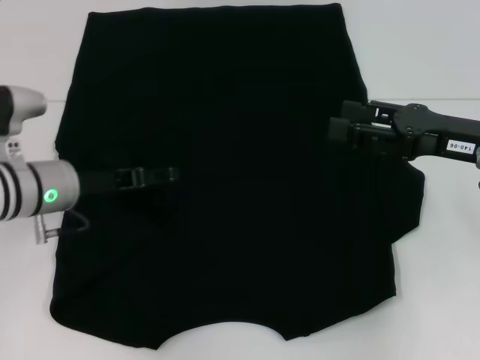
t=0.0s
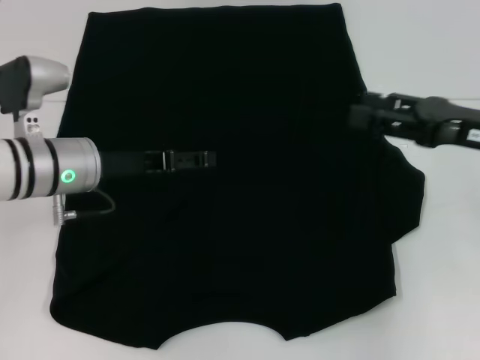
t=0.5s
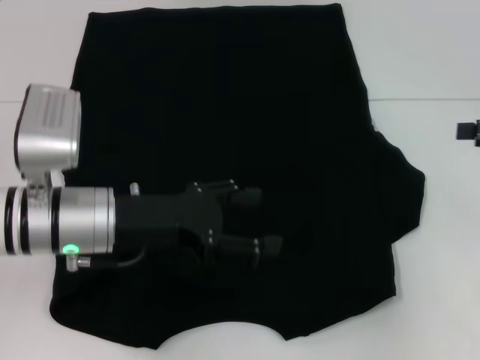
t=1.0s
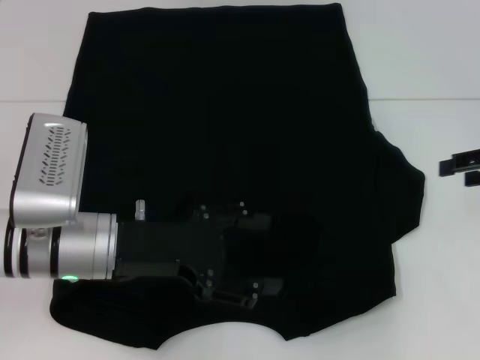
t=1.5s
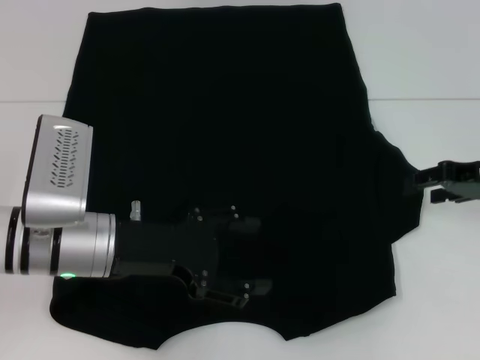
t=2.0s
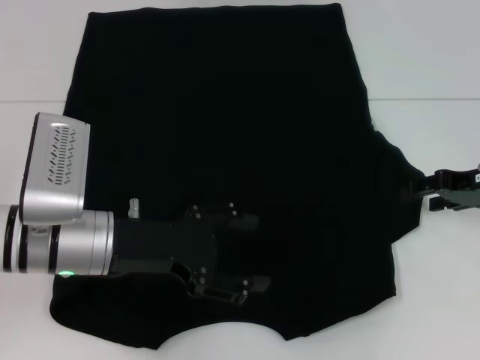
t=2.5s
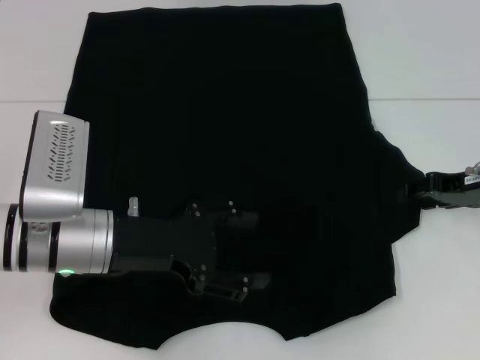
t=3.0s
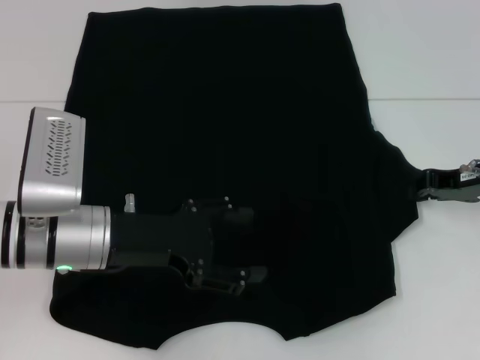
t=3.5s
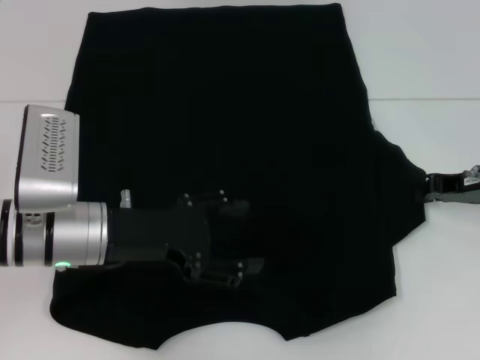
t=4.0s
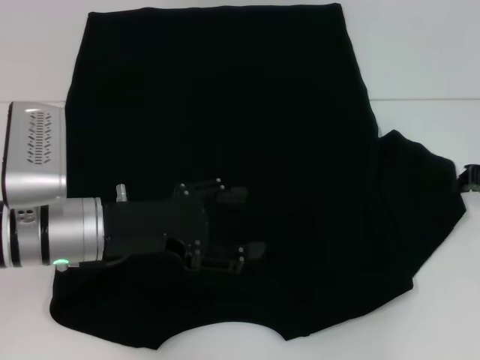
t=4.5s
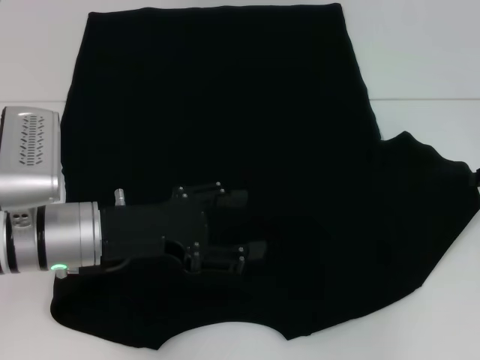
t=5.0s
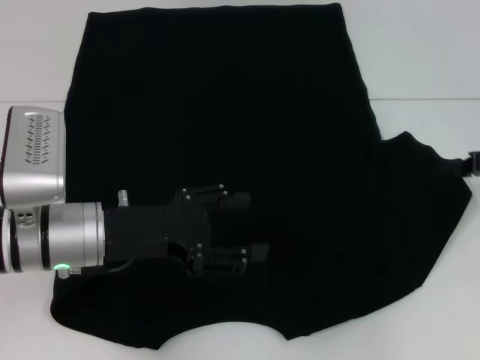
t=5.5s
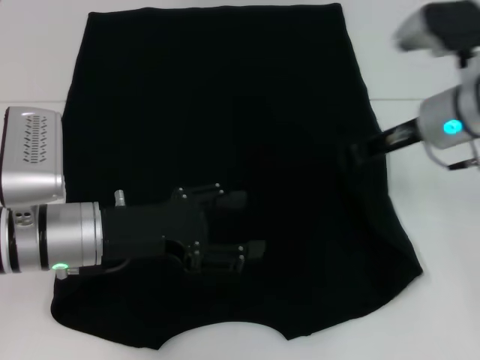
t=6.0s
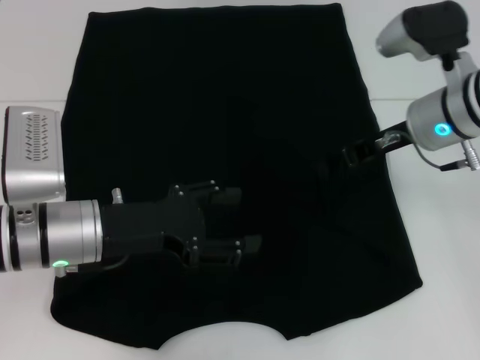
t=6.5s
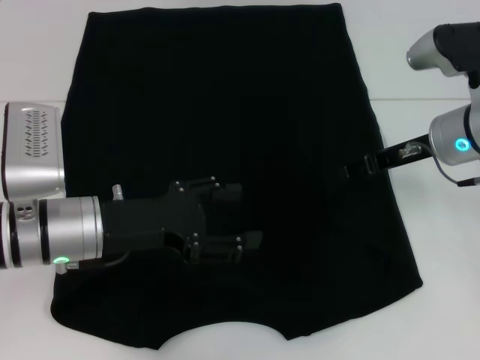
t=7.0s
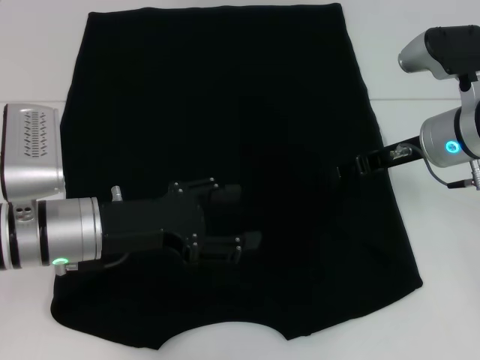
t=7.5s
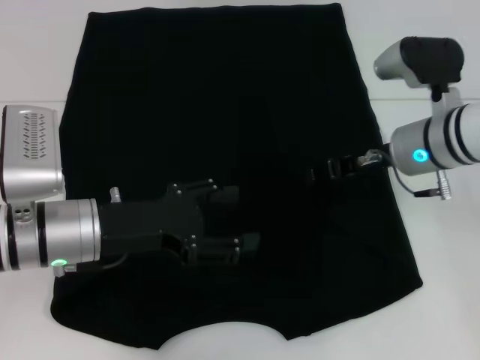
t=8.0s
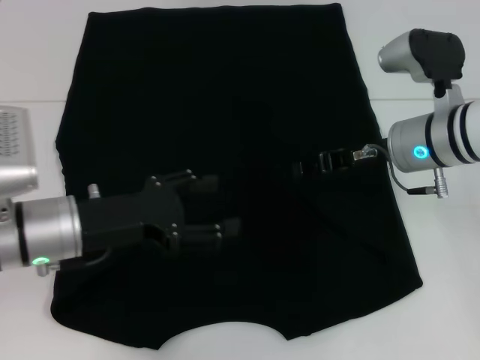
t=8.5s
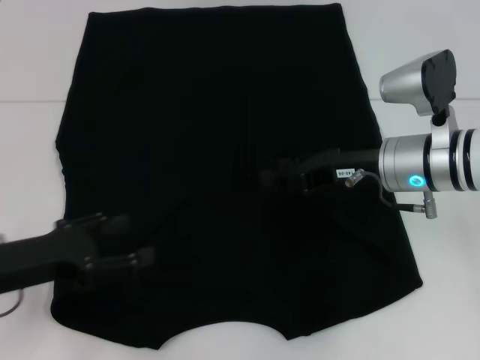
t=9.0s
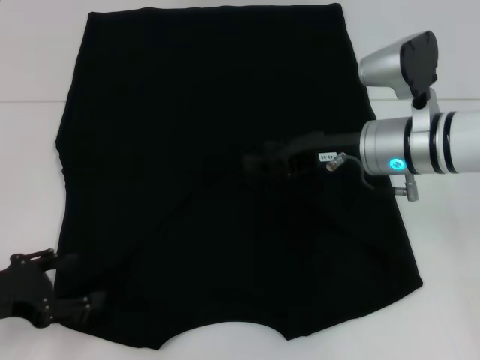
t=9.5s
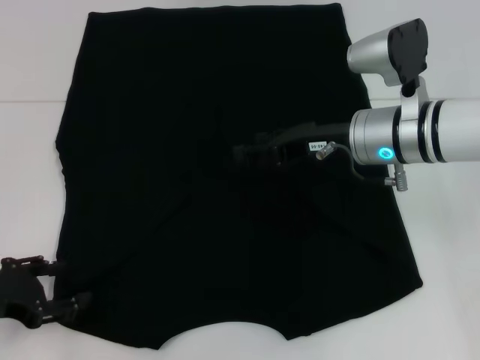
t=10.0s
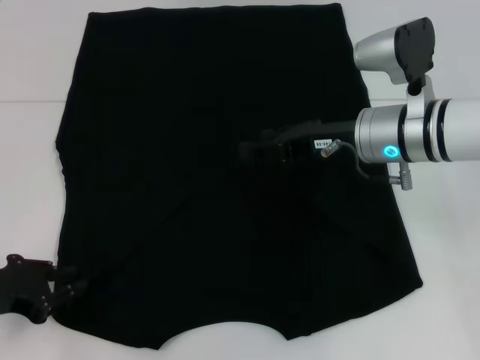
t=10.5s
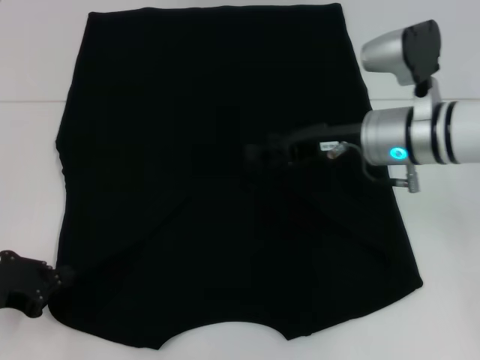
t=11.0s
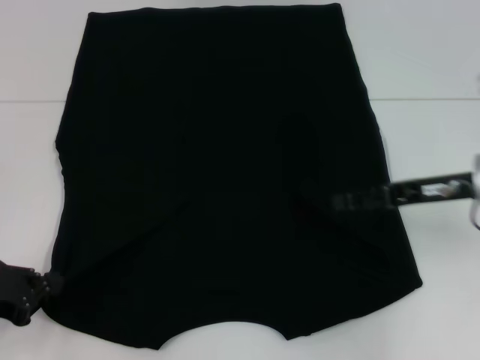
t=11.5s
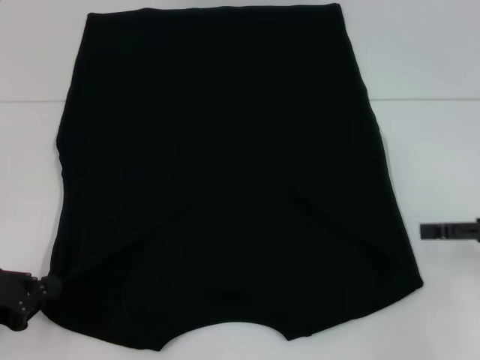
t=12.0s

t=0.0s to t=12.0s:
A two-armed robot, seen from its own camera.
Step, t=0.5s to t=6.5s: Fold the bottom right sleeve with your right hand.
Step, t=7.0s to t=11.0s: Grab the bottom left corner with your left hand.
t=0.0s to t=2.0s: The left gripper heads backward and to the right, covering roughly 10 cm, while the right gripper moves to the right, some 5 cm.
t=2.0s to t=4.0s: The right gripper closes up.
t=4.0s to t=6.0s: The right gripper shifts approximately 10 cm to the left and upward.
t=6.0s to t=8.0s: The right gripper opens up.
t=8.0s to t=10.0s: The left gripper shifts some 15 cm to the left and backward.
t=10.0s to t=12.0s: The right gripper goes about 20 cm to the right and backward. Meanwhile the left gripper closes up.

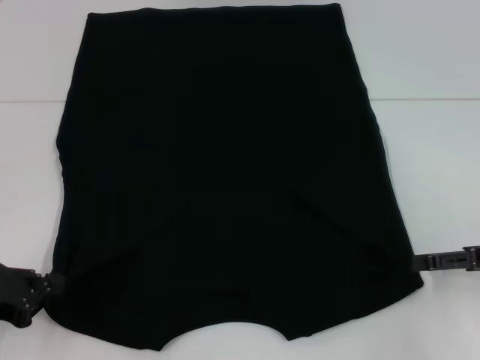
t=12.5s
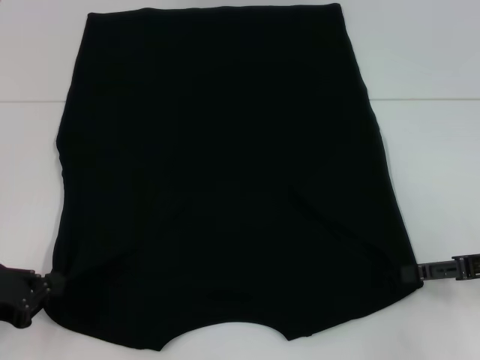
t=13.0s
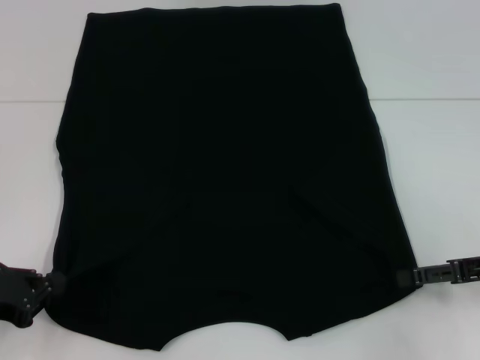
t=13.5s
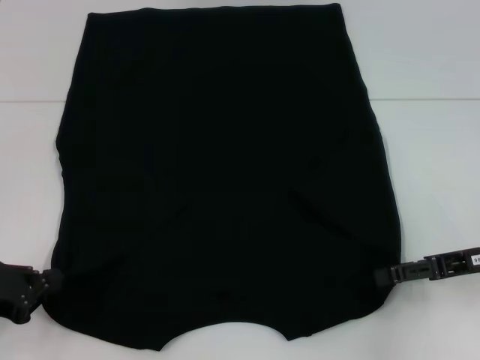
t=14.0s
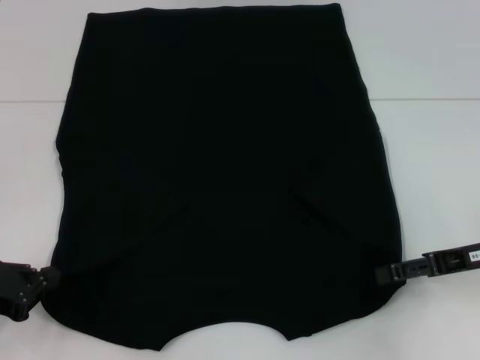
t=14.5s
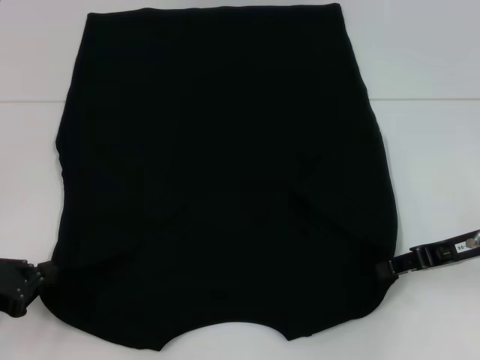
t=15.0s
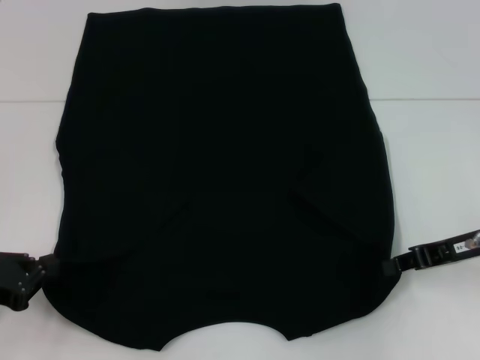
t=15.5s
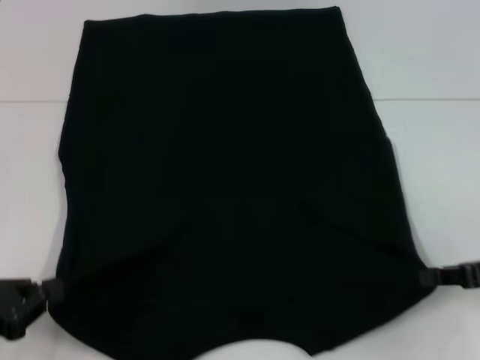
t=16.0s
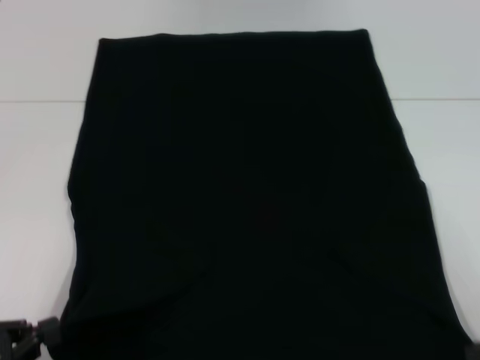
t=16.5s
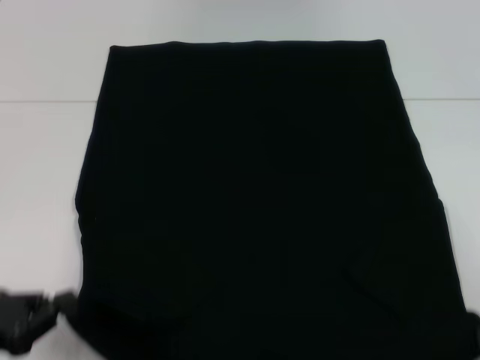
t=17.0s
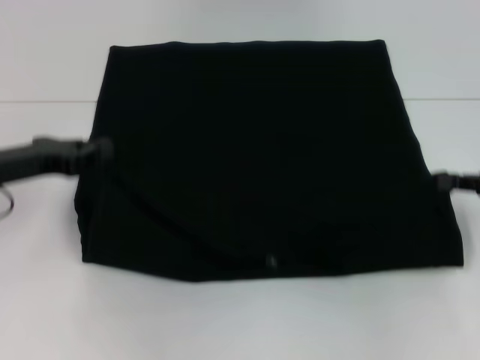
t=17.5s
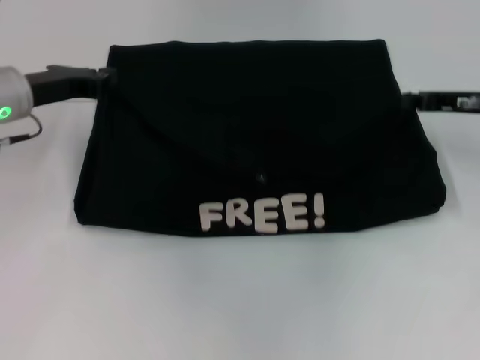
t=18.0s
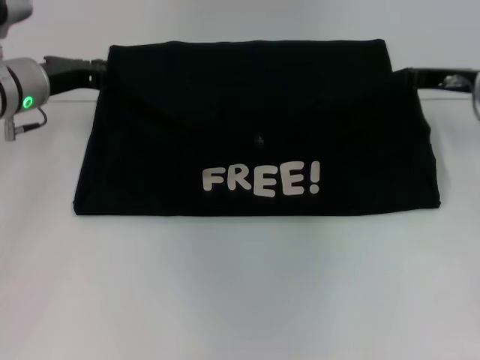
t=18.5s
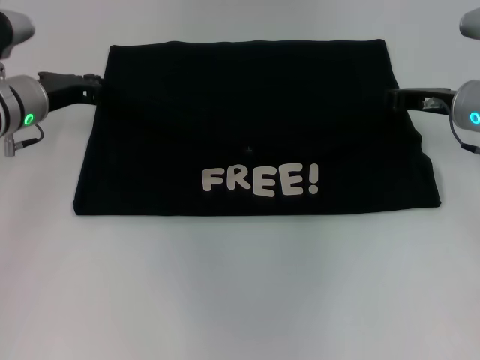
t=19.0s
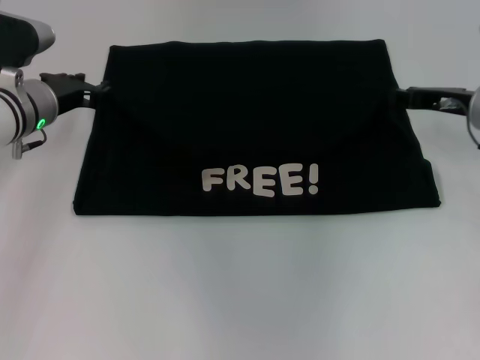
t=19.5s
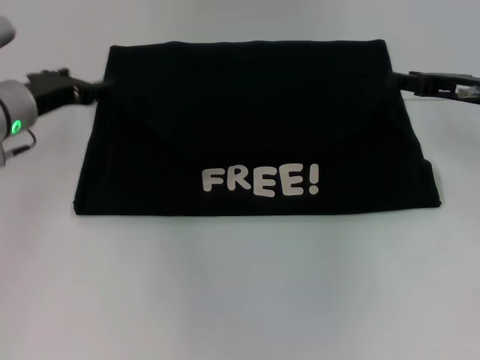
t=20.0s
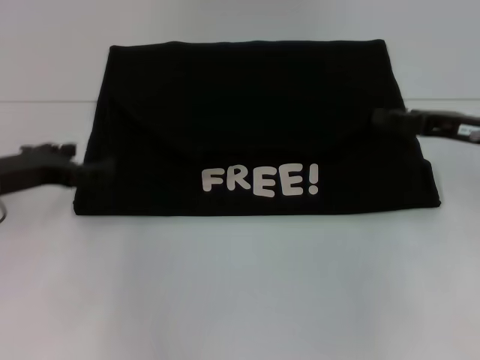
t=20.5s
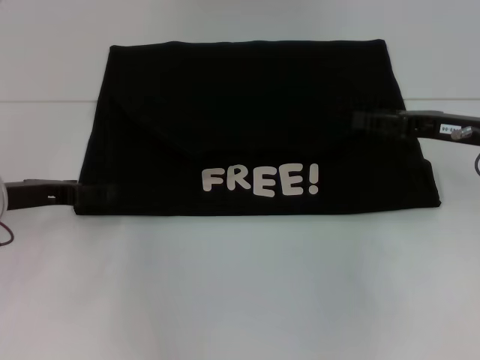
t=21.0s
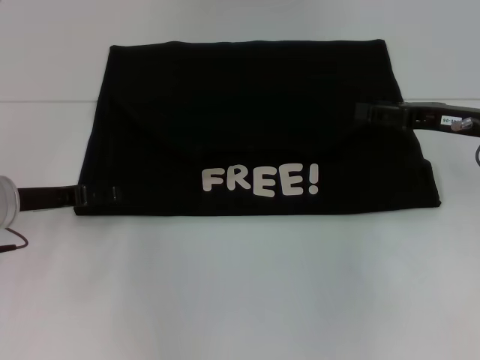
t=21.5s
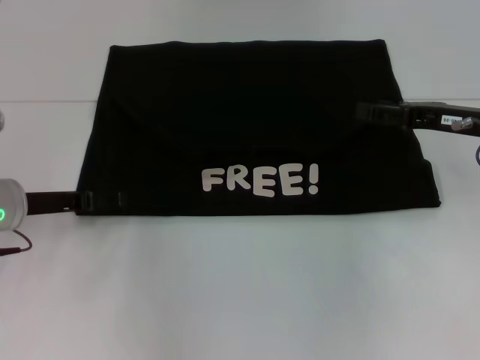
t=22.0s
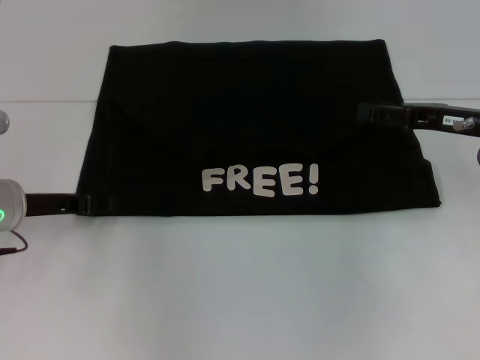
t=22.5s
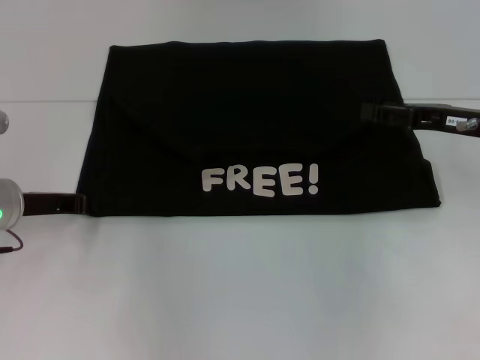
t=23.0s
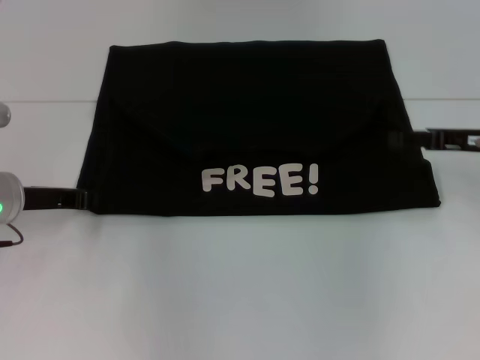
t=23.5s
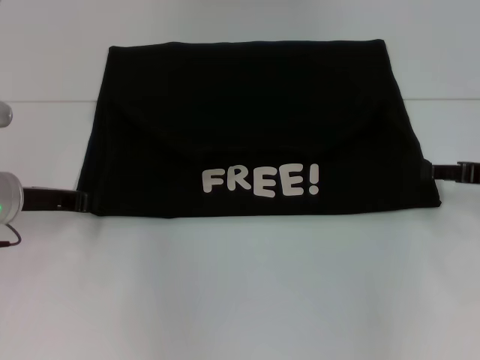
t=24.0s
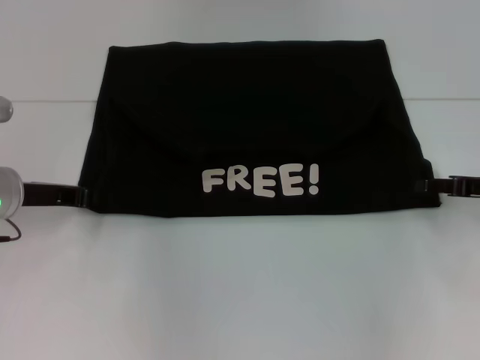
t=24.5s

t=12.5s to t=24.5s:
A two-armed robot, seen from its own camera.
Step, t=12.5s to t=15.0s: Grab the bottom right corner with your right hand.
Step, t=15.5s to t=19.5s: Fold the clothes with your left hand.
Step, t=15.5s to t=19.5s: Fold the clothes with your right hand.
t=12.5s to t=14.5s: The grippers stay close to where they were, moving slightly.
t=14.5s to t=16.5s: The left gripper goes about 5 cm backward. Meanwhile the right gripper goes roughly 15 cm backward and to the right, and closes up.
t=16.5s to t=18.5s: The right gripper heads forward and to the left, covering about 25 cm. Meanwhile the left gripper moves forward, about 30 cm.
t=18.5s to t=20.5s: Both grippers move backward, roughly 10 cm. The right gripper opens up. Meanwhile the left gripper opens its fingers.
t=22.5s to t=24.5s: The left gripper closes its fingers. Meanwhile the right gripper travels to the right by approximately 5 cm.

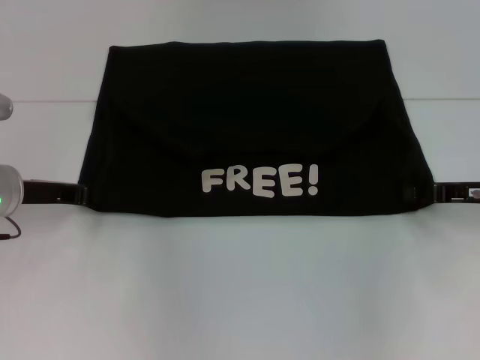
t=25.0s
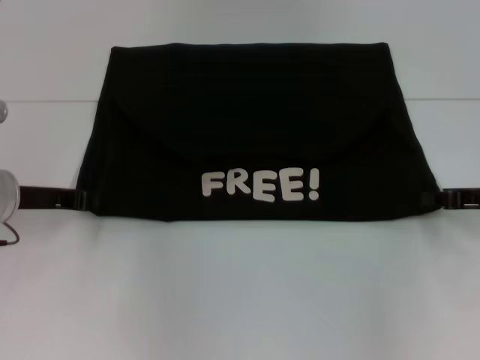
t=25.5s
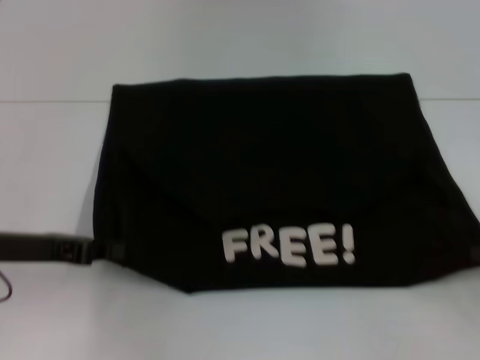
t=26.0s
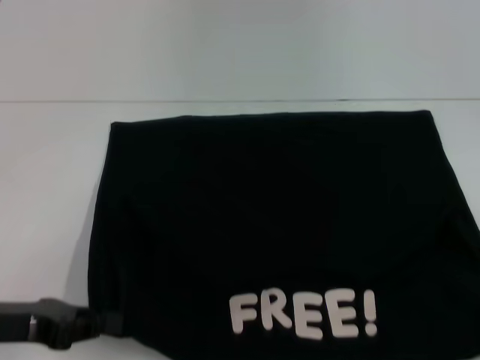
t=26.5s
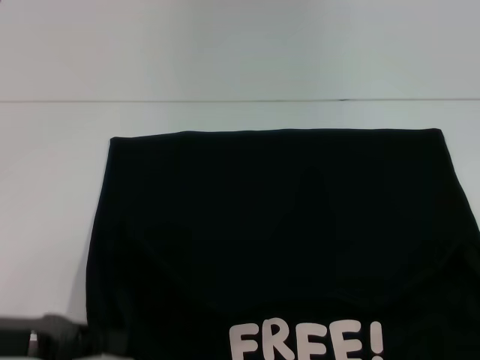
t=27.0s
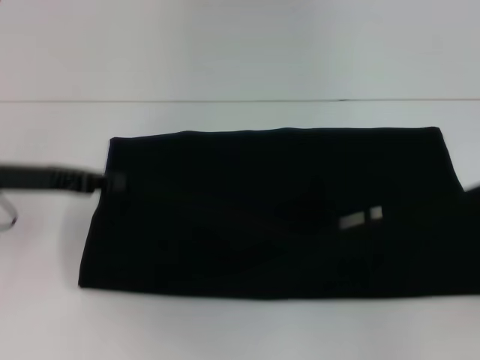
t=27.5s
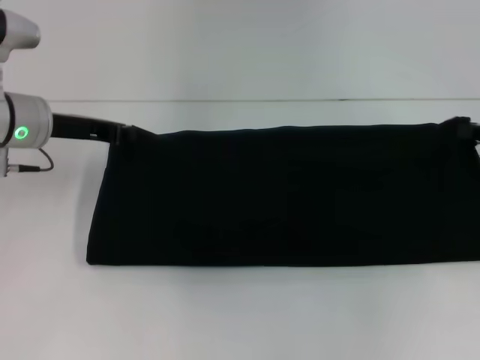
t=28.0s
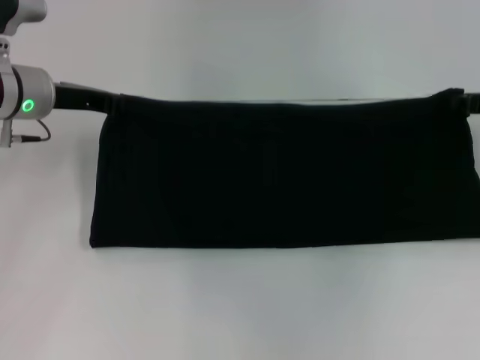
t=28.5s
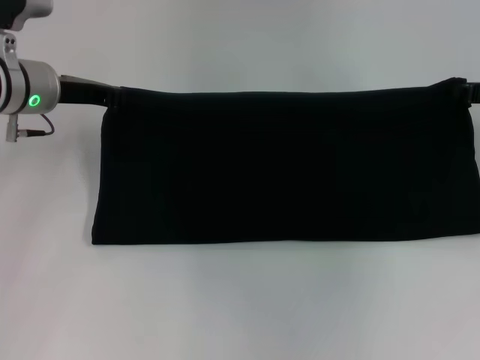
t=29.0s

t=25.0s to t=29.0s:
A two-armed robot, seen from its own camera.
t=25.0s to t=27.0s: The right gripper heads backward and to the right, covering some 25 cm, and closes its fingers, while the left gripper shifts approximately 15 cm backward.
t=27.0s to t=29.0s: The grippers both shift forward by about 25 cm.
